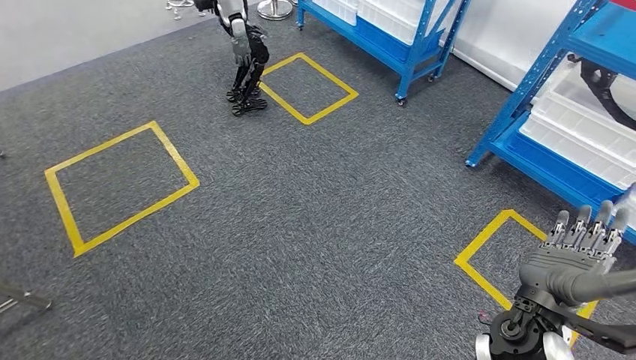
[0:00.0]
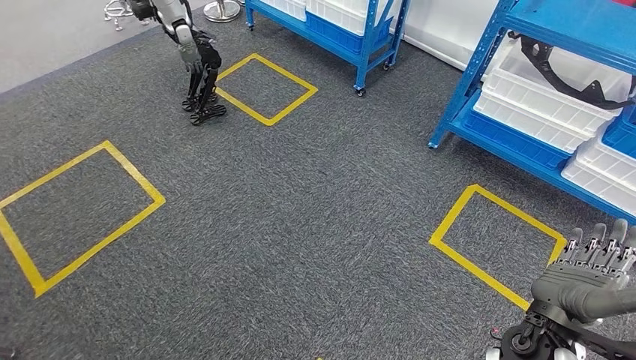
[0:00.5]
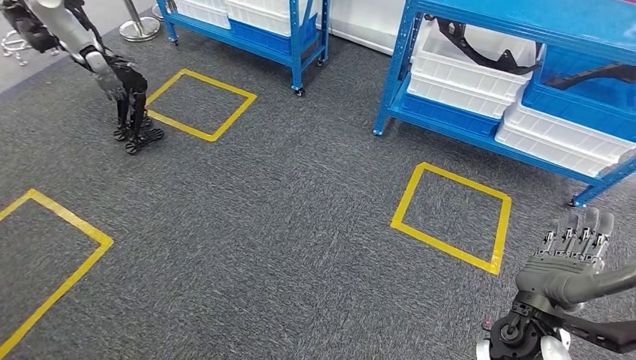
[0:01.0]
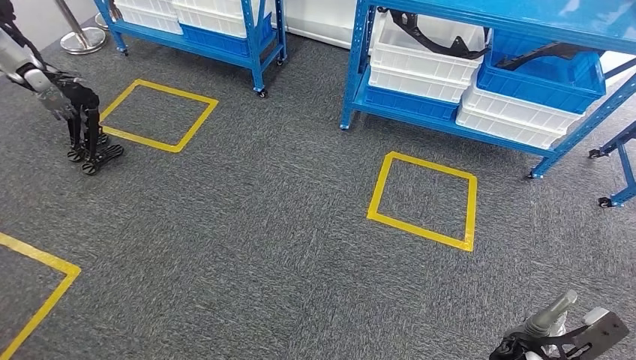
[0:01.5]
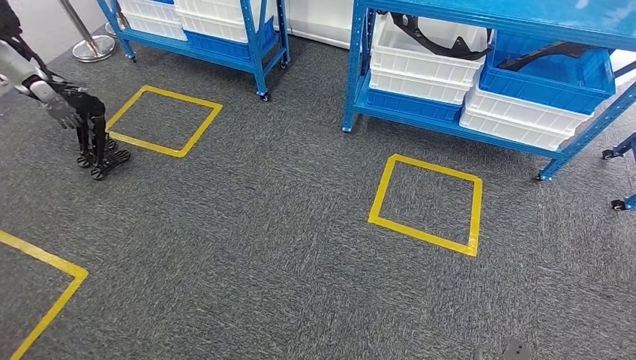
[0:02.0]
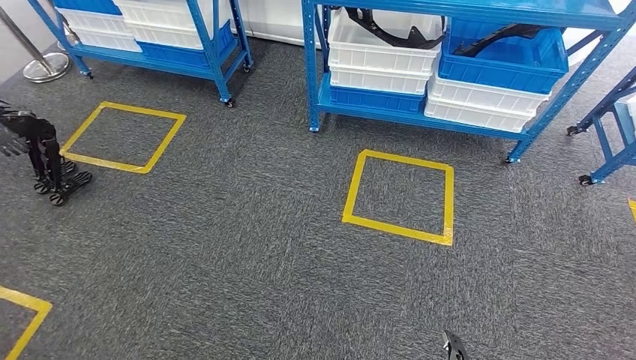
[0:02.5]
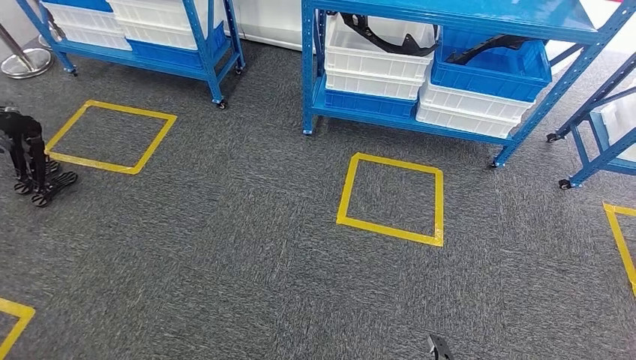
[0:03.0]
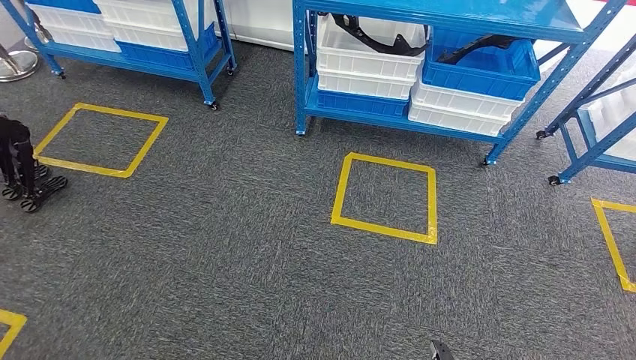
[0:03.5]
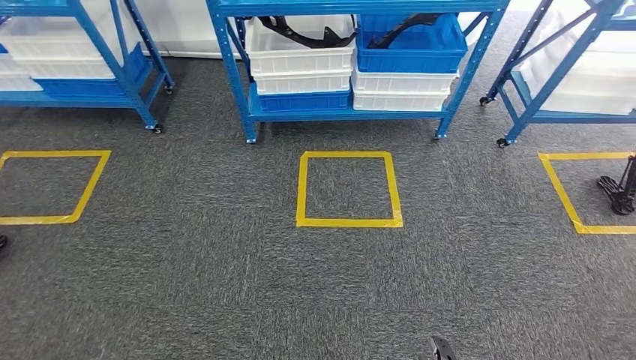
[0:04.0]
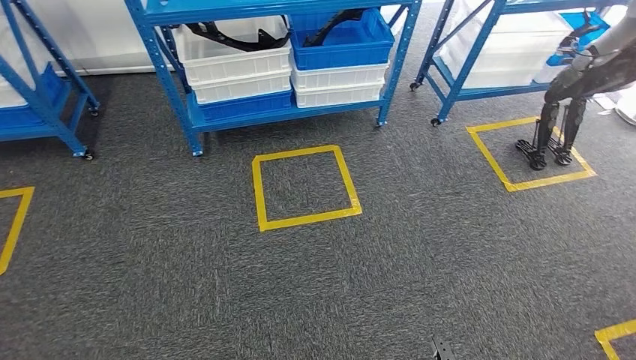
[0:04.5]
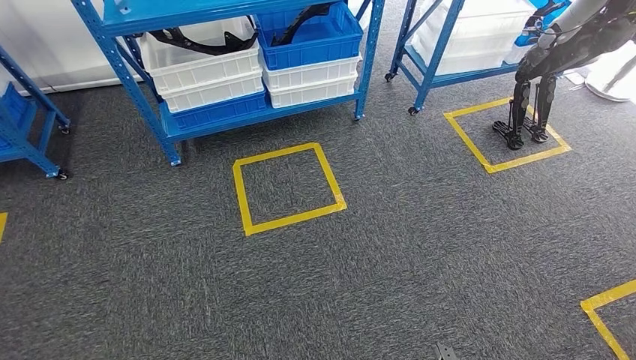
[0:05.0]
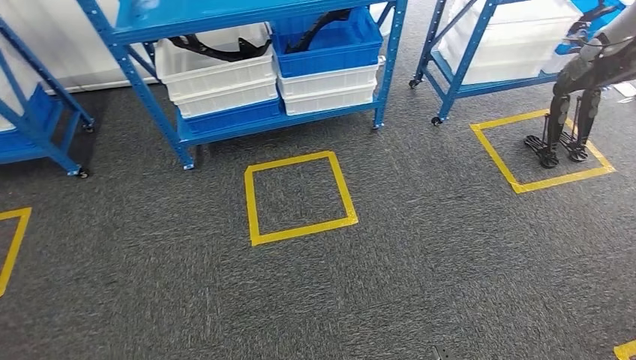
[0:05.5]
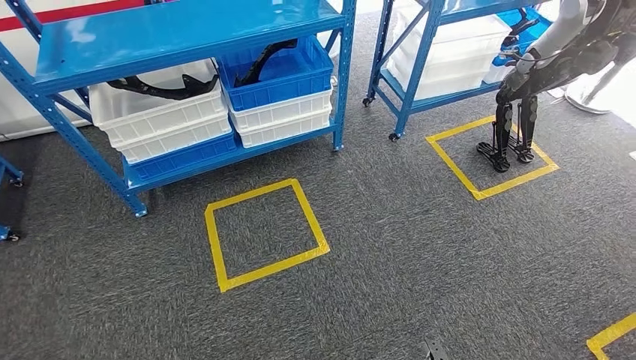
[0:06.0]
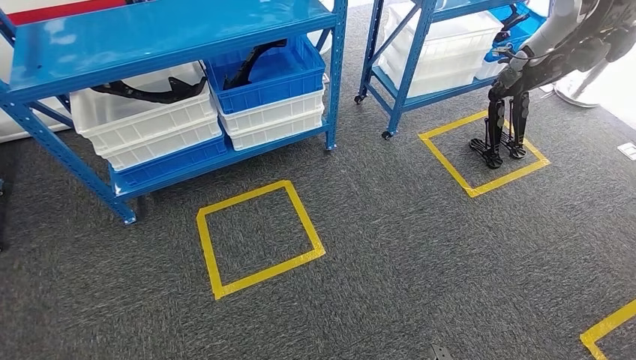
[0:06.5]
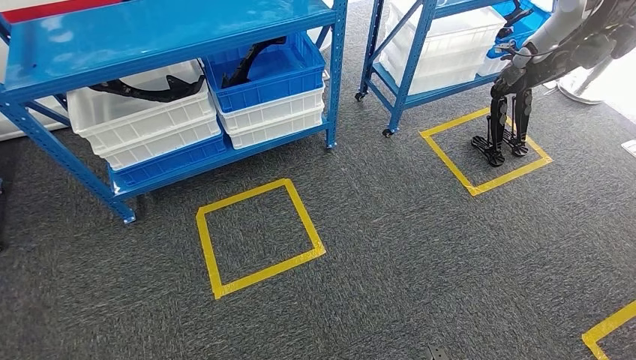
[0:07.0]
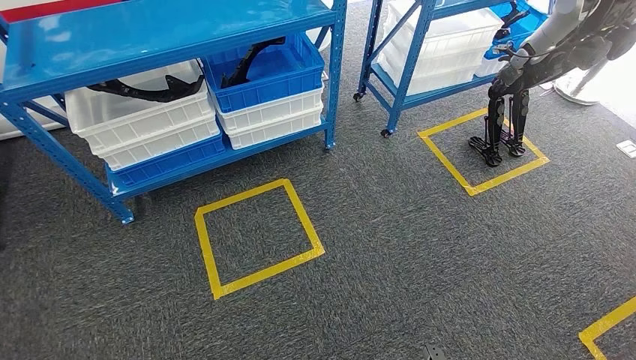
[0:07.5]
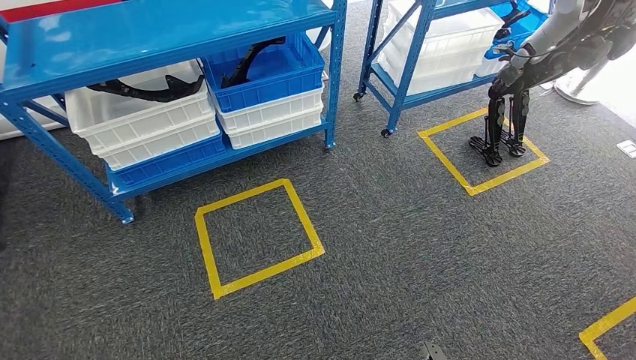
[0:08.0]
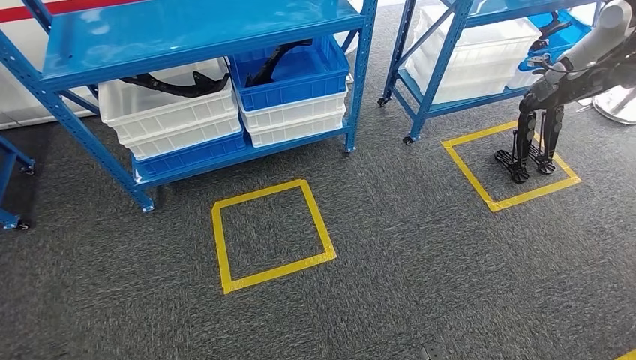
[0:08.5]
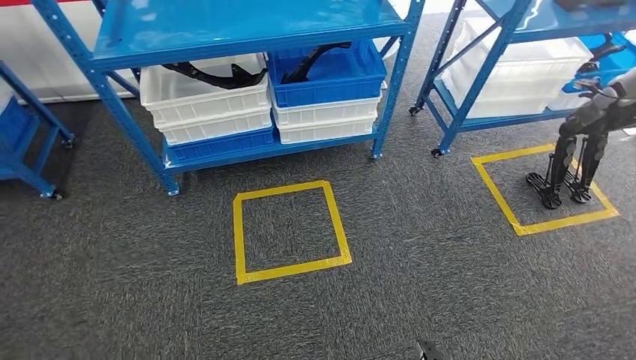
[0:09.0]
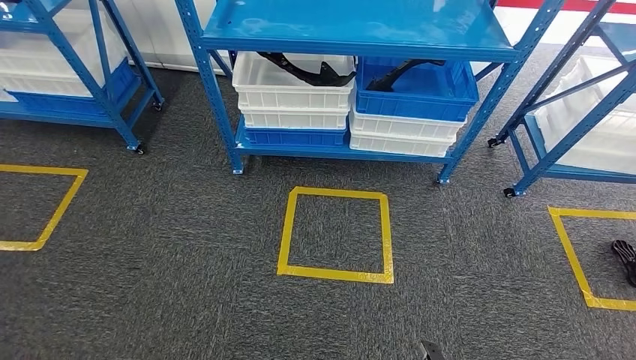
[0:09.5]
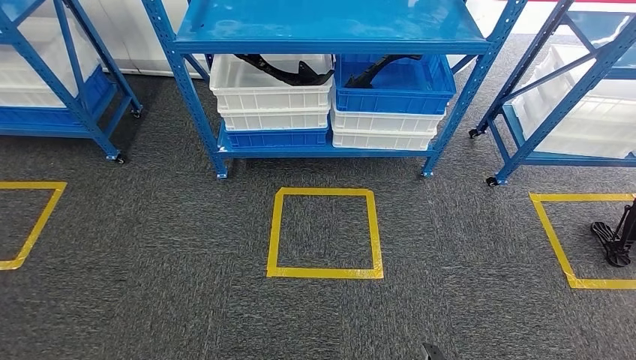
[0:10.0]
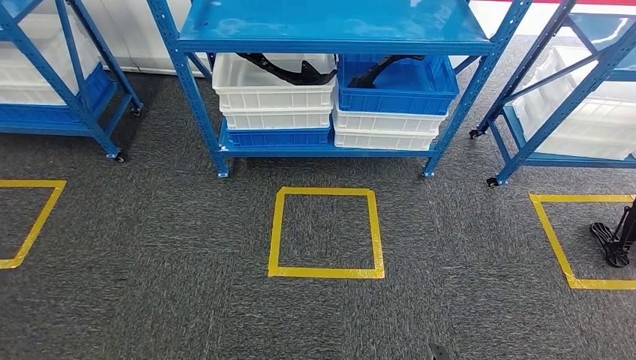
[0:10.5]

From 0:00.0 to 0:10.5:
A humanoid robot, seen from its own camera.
Step, from 0:00.0 to 0:10.5: Move to the initial position of the shelf.
